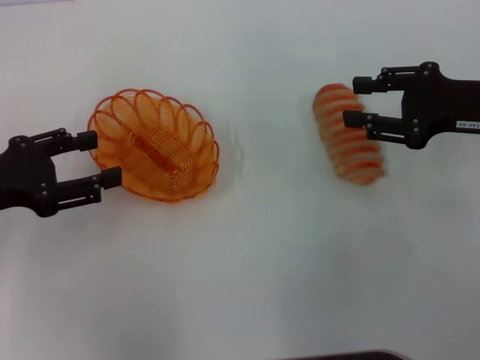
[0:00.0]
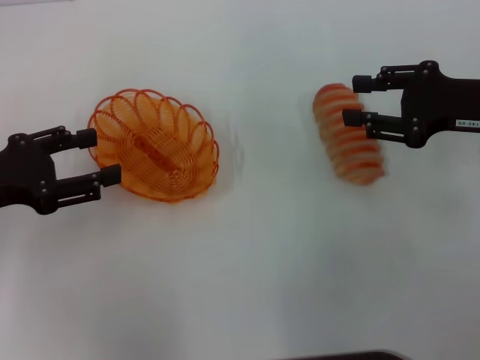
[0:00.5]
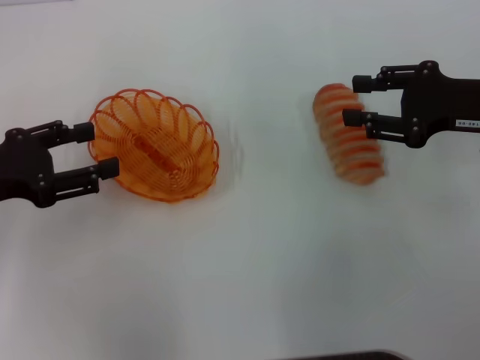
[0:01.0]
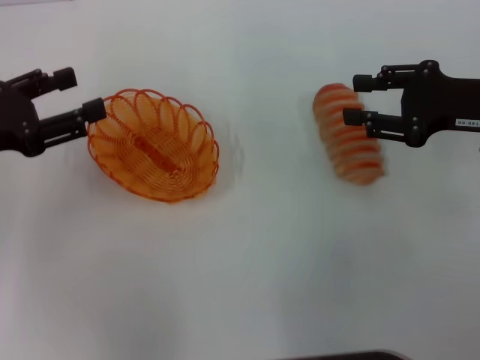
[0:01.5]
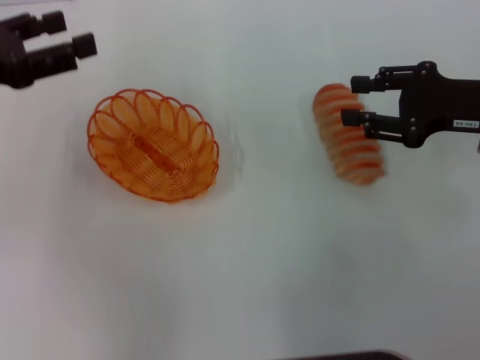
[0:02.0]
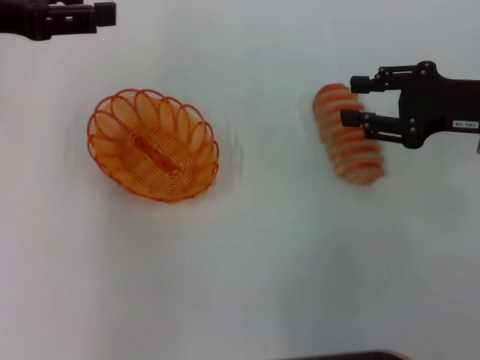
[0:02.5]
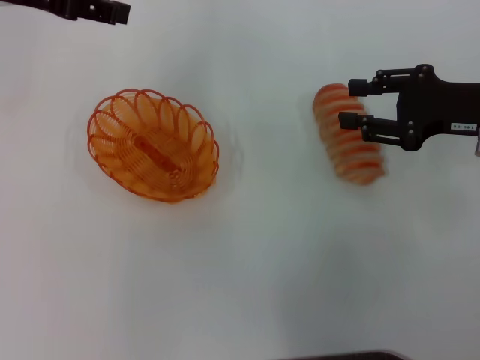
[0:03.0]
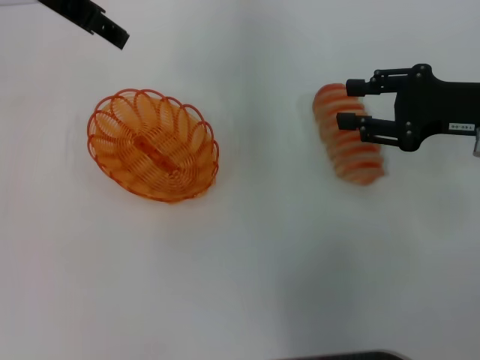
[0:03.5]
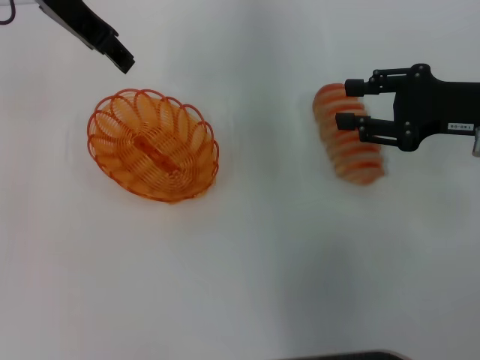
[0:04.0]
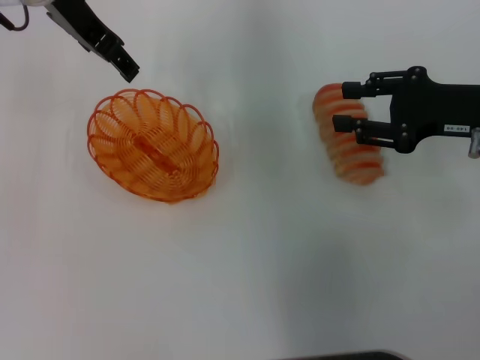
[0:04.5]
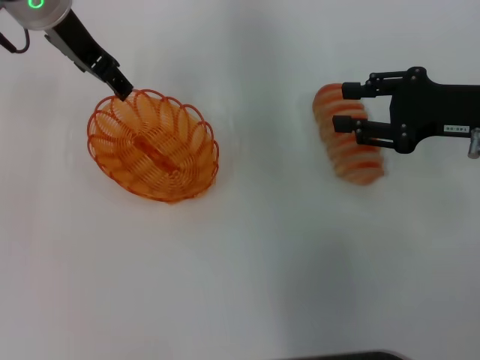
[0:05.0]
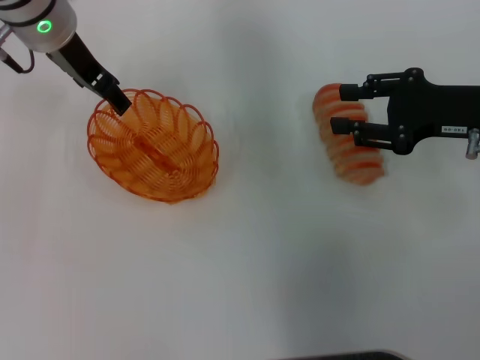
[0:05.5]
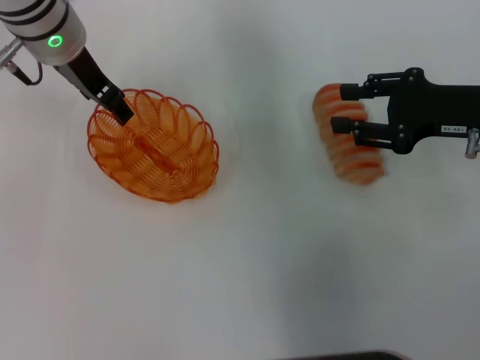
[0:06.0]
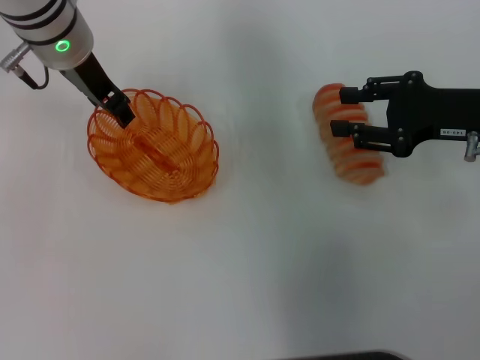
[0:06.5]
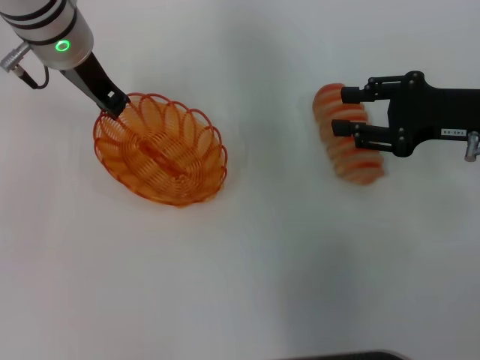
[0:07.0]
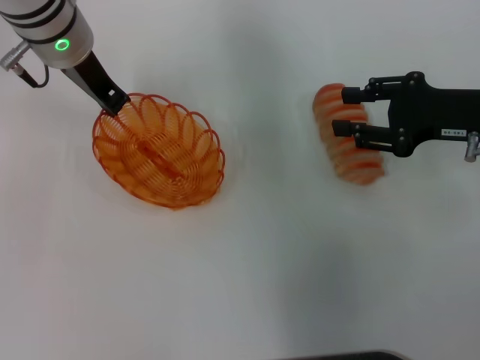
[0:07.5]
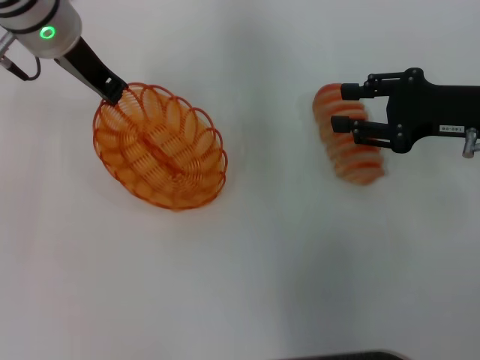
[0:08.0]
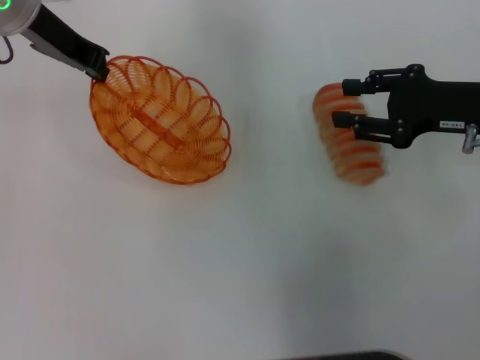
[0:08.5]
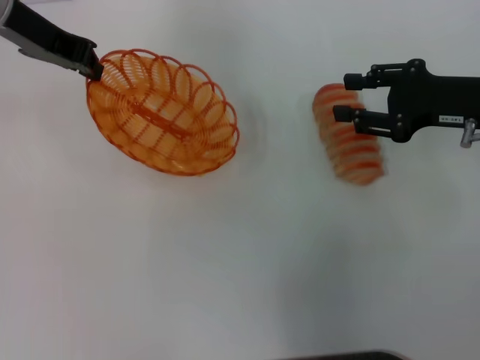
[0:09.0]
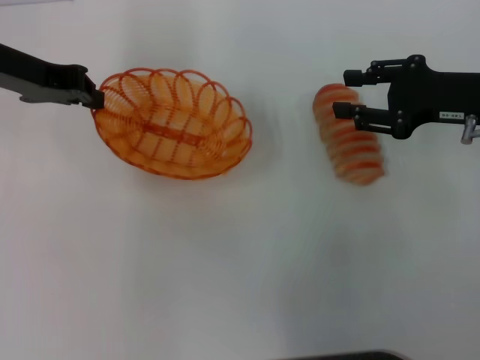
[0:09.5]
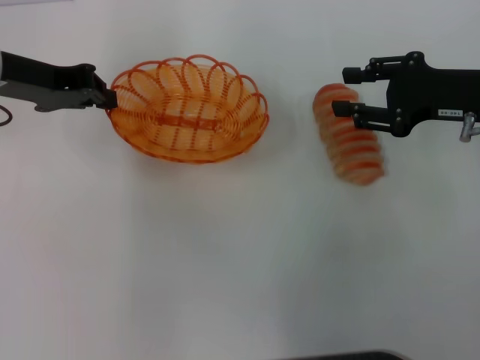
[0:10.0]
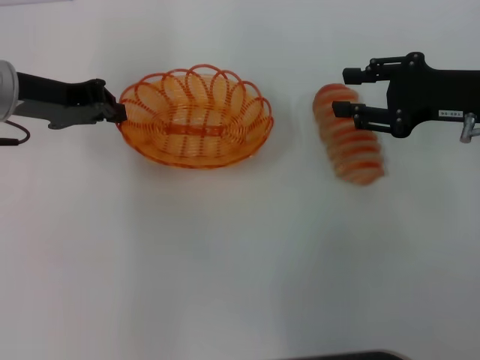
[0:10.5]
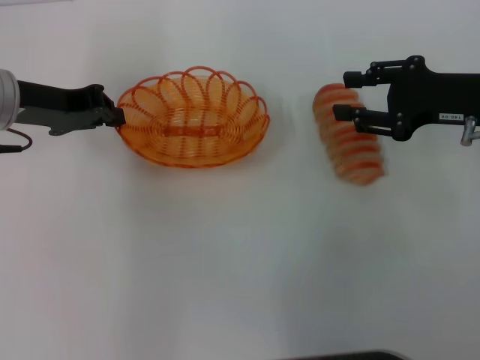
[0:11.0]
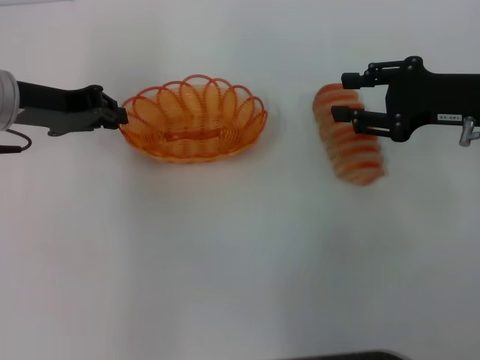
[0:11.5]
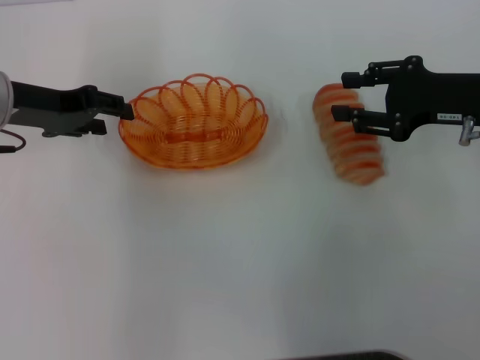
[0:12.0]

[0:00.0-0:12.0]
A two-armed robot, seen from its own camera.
Step, 0:00.0 to 0:09.0: Pick up the basket with the left gripper.
0:00.0 to 0:02.0: The left gripper goes approximately 10 cm upward and forward.
0:02.0 to 0:04.0: The left gripper moves to the right, forward and upward, approximately 20 cm.
0:04.0 to 0:06.0: The left gripper shifts some 10 cm downward.
0:06.0 to 0:08.0: The left gripper closes up.
0:08.0 to 0:10.0: The left gripper is displaced to the left by roughly 10 cm.
0:10.0 to 0:12.0: The left gripper opens its fingers.

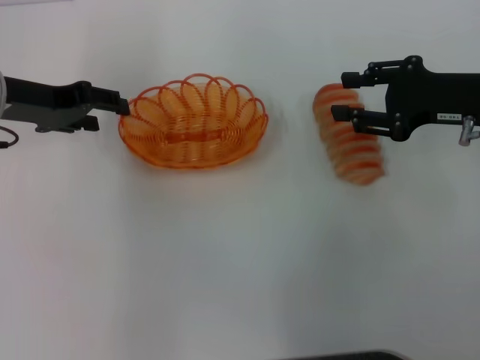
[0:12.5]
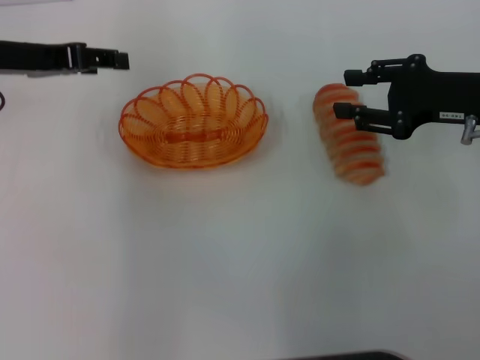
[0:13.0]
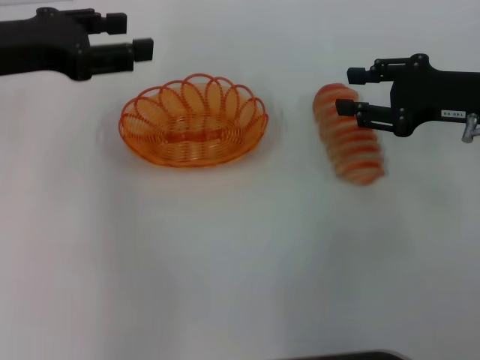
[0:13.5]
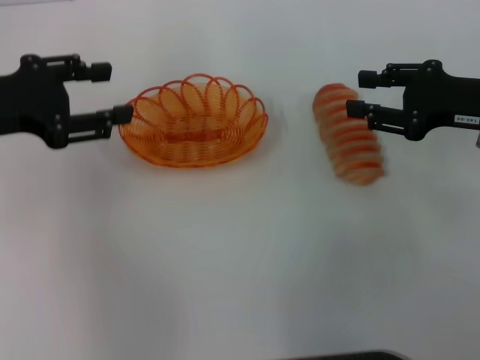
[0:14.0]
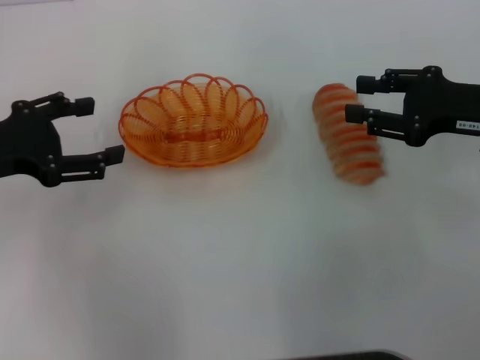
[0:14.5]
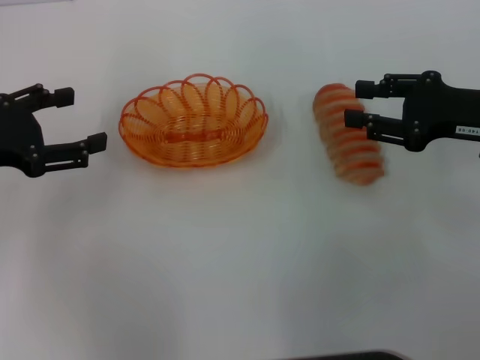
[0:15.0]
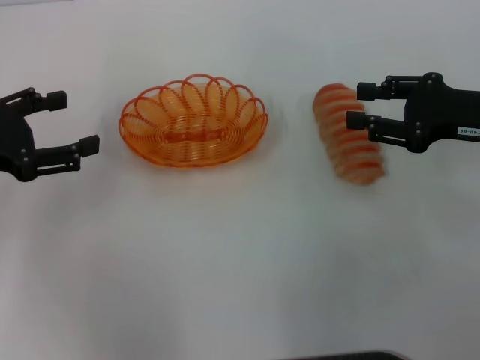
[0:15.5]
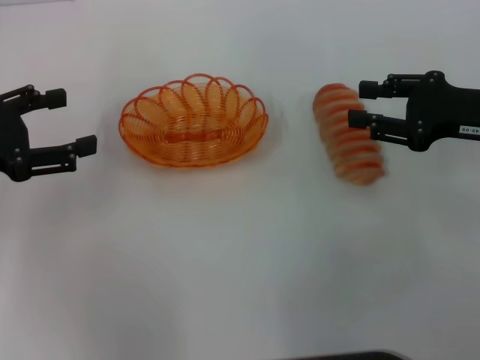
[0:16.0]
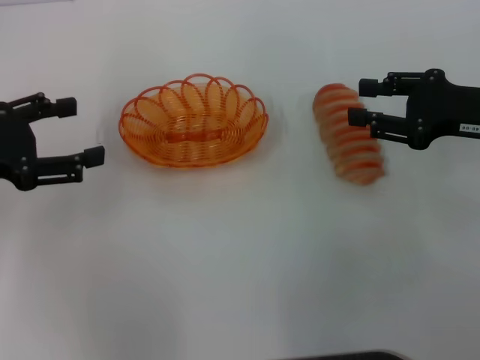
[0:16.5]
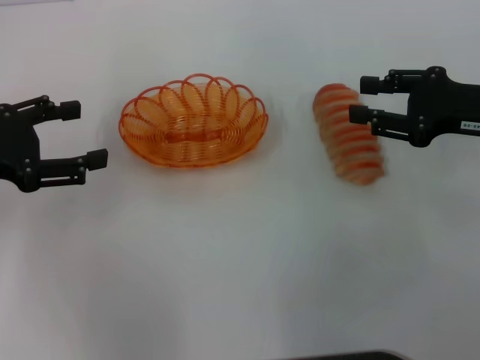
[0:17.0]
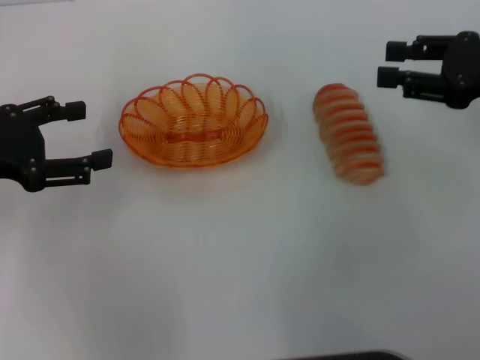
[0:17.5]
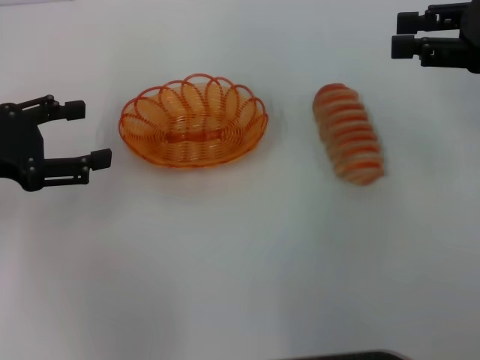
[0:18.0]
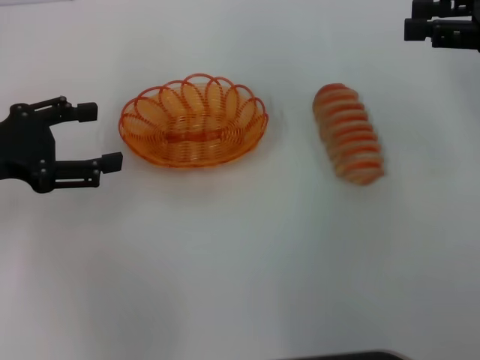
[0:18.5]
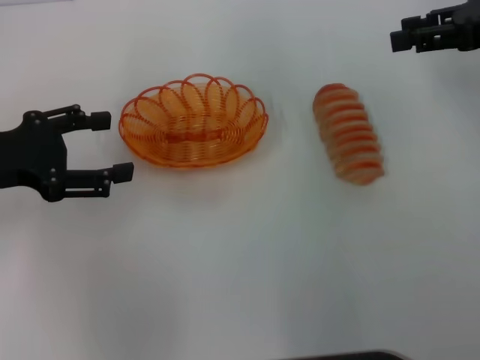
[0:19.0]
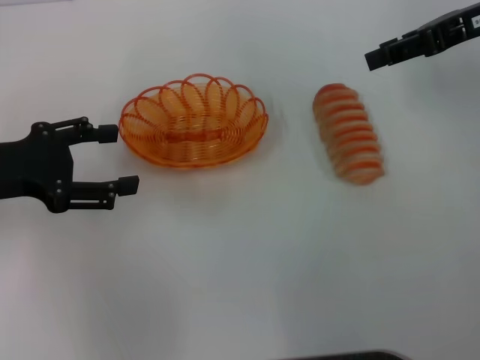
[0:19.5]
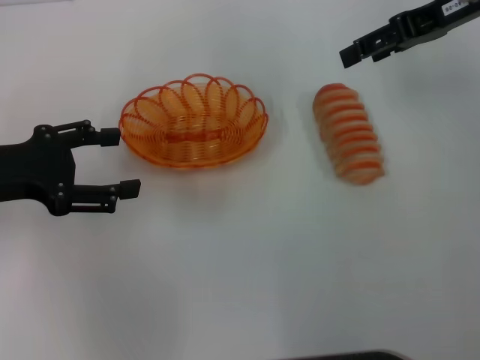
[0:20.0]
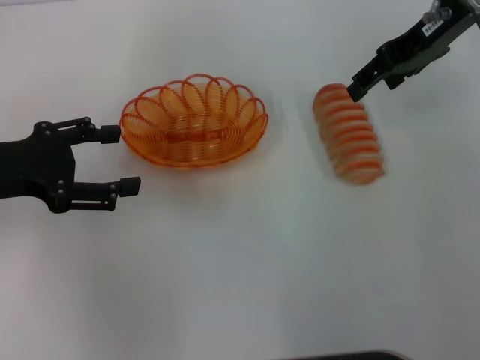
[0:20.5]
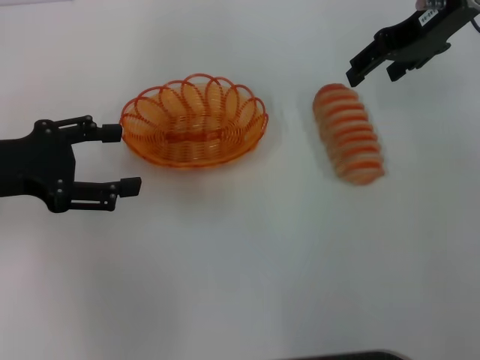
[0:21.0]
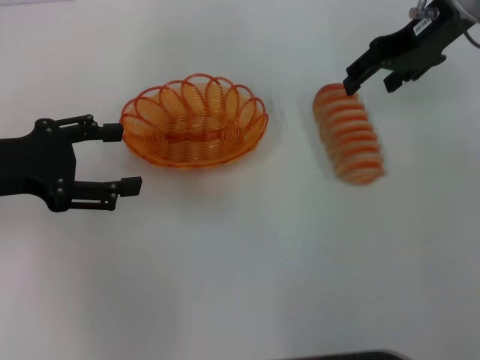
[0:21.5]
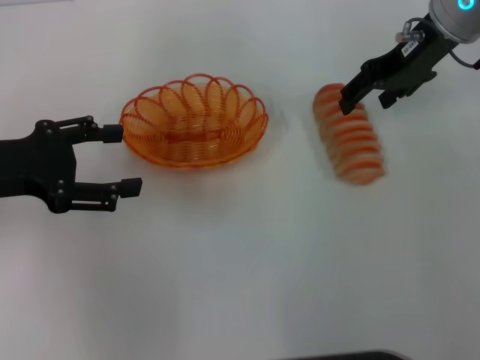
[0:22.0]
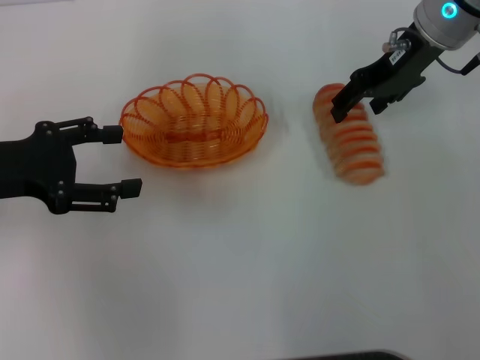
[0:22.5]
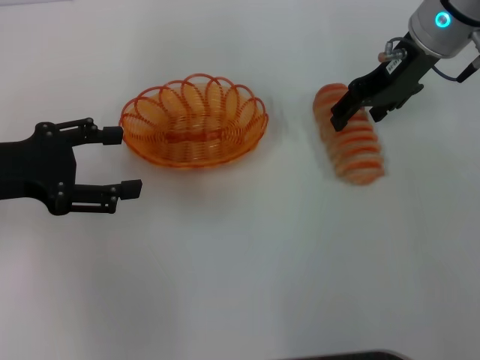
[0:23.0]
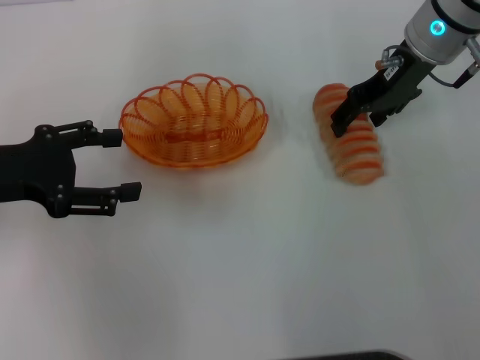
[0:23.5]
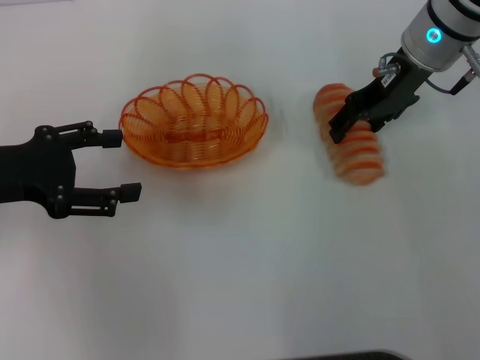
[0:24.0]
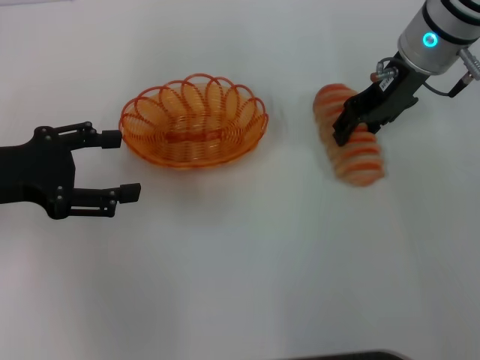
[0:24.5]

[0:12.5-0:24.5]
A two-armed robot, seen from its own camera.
0:12.5 to 0:14.5: The left gripper travels backward by some 10 cm.
0:14.5 to 0:16.5: The grippers move only a little.
0:16.5 to 0:18.5: The right gripper is displaced upward by roughly 10 cm.
0:18.5 to 0:20.5: The right gripper is displaced to the left and forward by approximately 15 cm, and opens up.
0:20.5 to 0:22.5: There are only small adjustments of the grippers.
0:22.5 to 0:24.5: The grippers stay close to where they were, moving slightly.

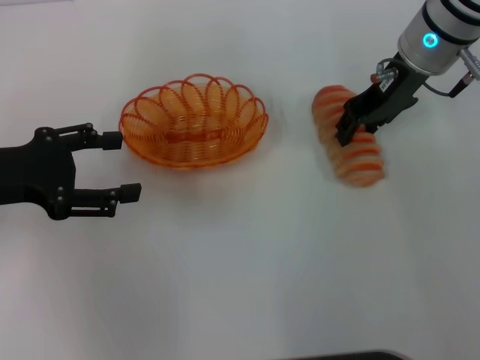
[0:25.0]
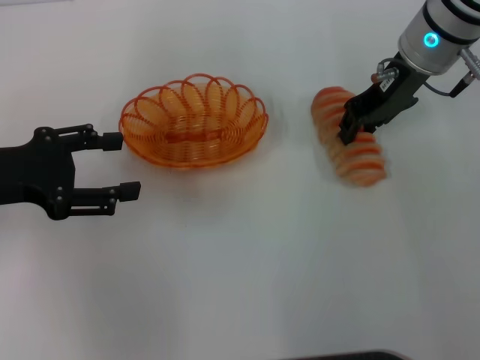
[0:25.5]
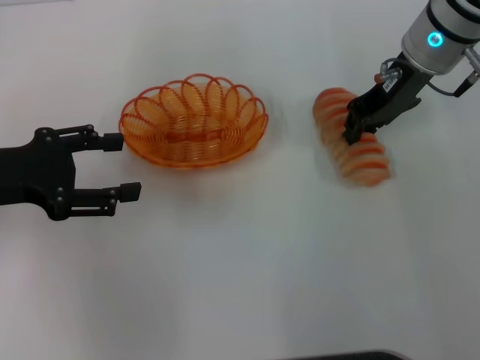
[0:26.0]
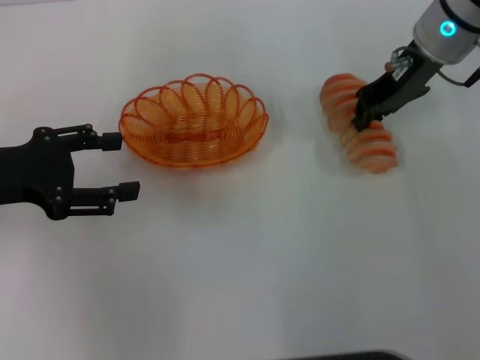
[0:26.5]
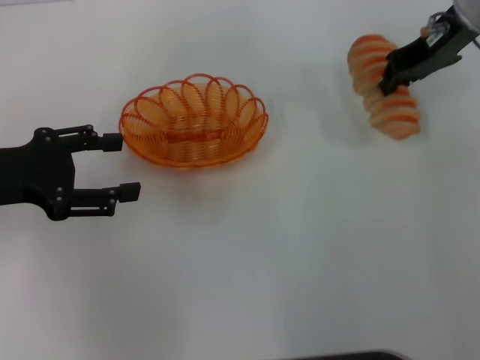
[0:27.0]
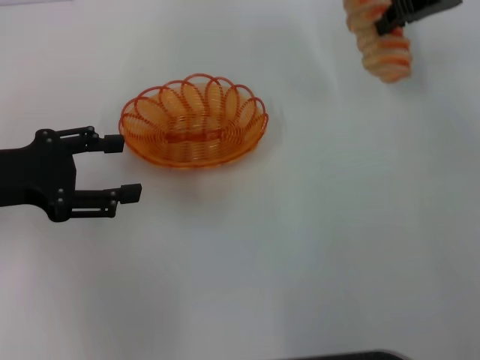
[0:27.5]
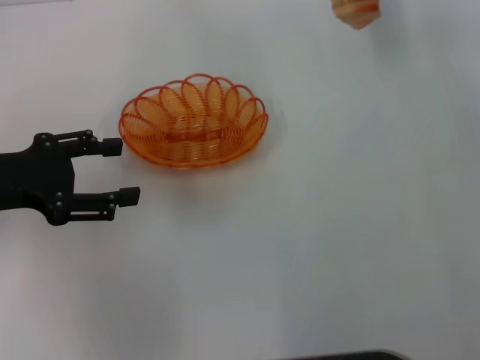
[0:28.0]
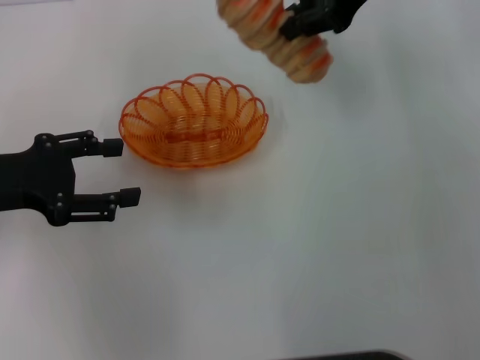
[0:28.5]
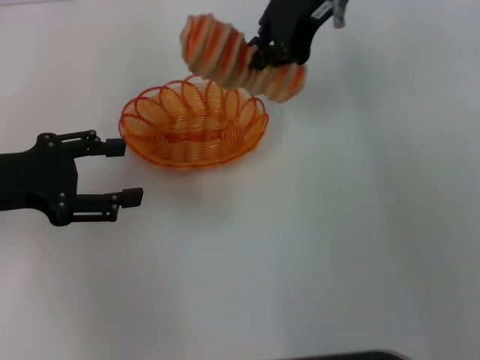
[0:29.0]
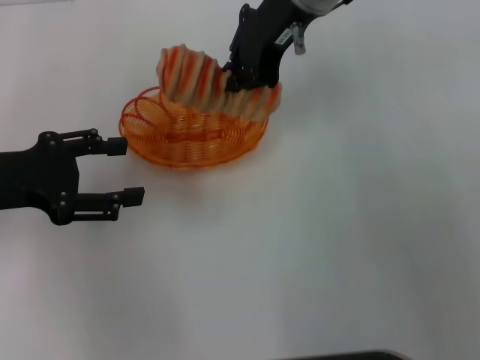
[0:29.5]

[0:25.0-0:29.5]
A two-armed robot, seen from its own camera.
Step, 0:25.0 to 0:27.0: Pick up the long bread with the right gripper.
0:25.0 to 0:27.0: The right gripper moves roughly 5 cm, and closes its fingers.
0:27.0 to 0:29.5: The right gripper is displaced to the left by some 15 cm.
